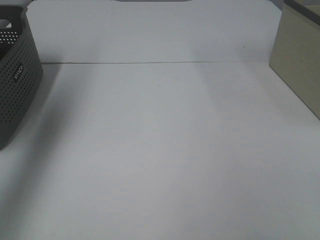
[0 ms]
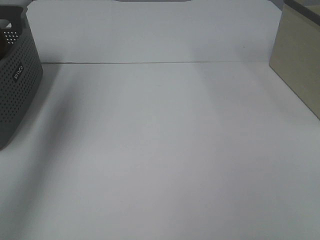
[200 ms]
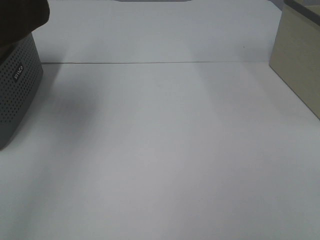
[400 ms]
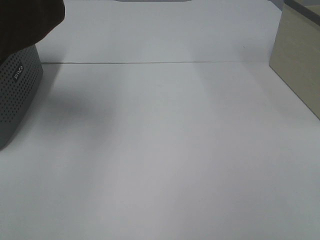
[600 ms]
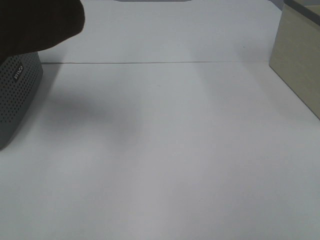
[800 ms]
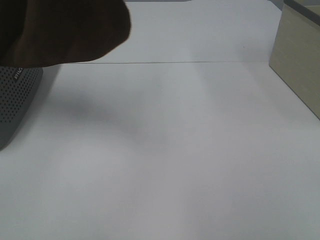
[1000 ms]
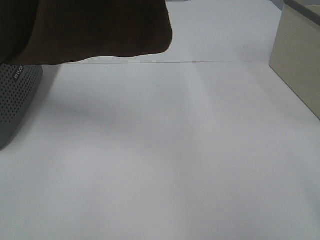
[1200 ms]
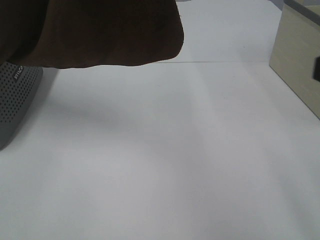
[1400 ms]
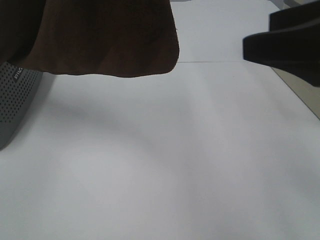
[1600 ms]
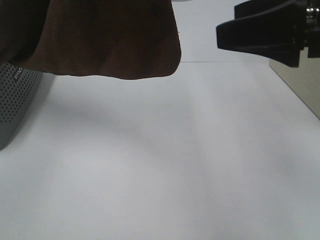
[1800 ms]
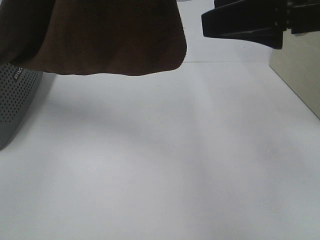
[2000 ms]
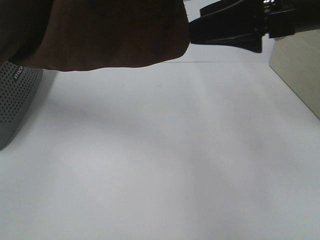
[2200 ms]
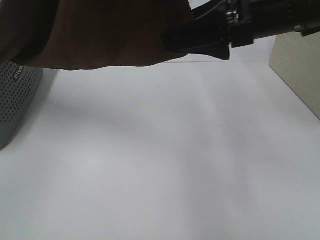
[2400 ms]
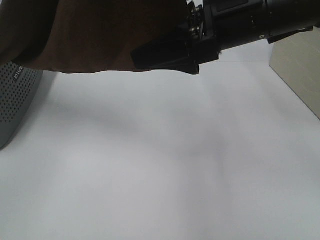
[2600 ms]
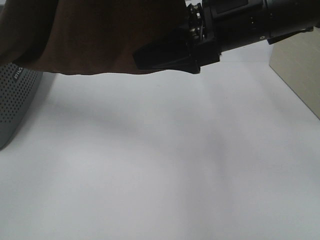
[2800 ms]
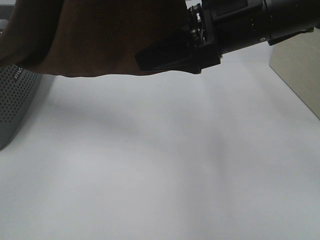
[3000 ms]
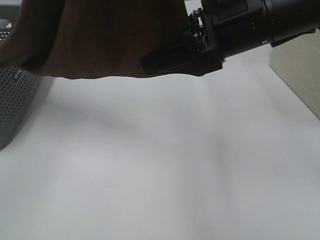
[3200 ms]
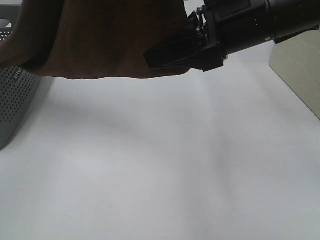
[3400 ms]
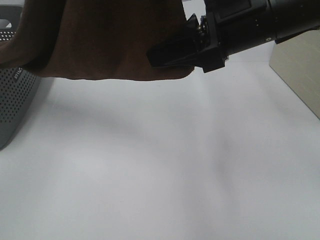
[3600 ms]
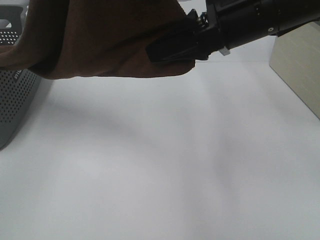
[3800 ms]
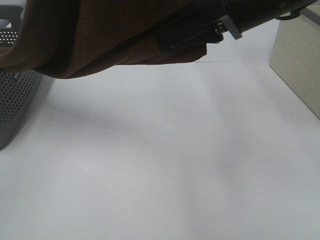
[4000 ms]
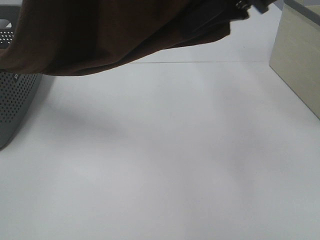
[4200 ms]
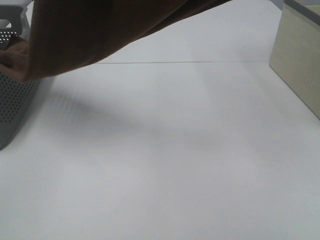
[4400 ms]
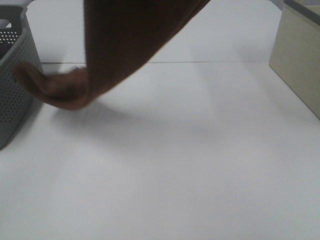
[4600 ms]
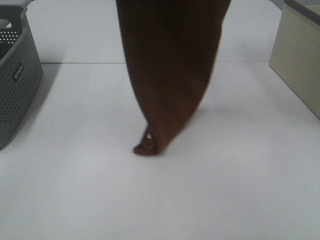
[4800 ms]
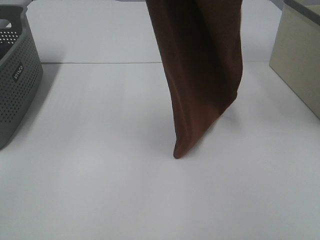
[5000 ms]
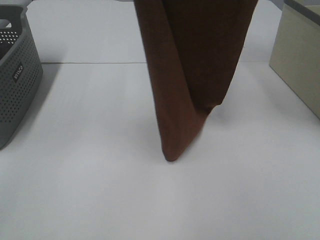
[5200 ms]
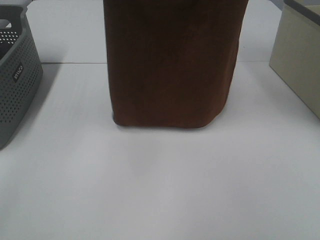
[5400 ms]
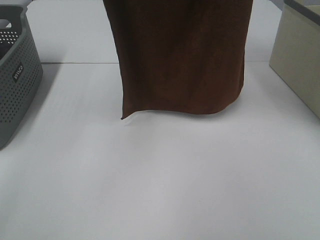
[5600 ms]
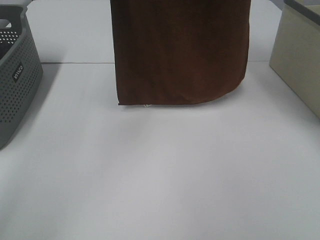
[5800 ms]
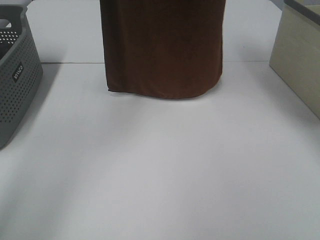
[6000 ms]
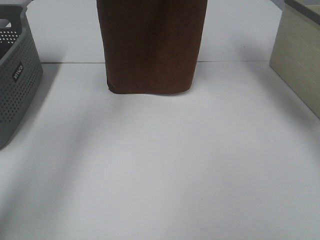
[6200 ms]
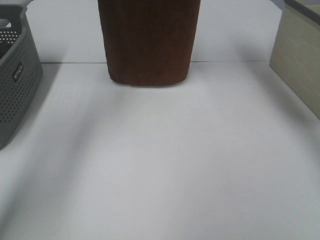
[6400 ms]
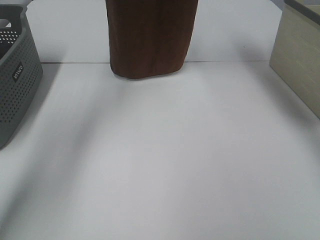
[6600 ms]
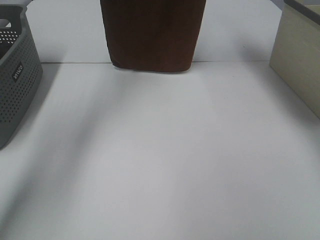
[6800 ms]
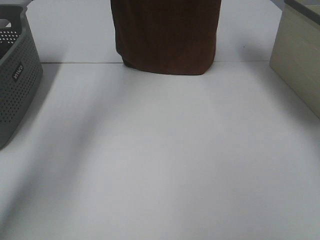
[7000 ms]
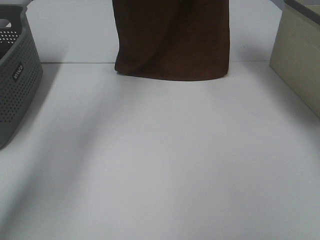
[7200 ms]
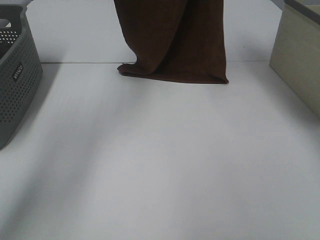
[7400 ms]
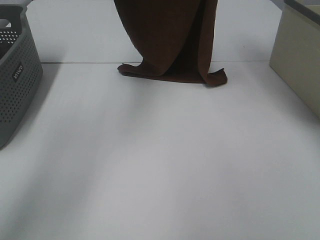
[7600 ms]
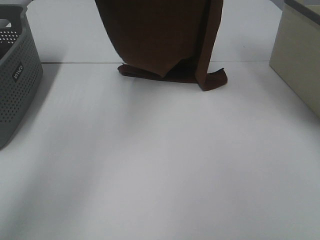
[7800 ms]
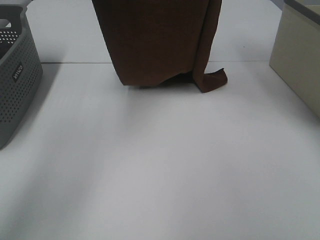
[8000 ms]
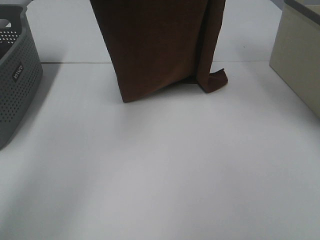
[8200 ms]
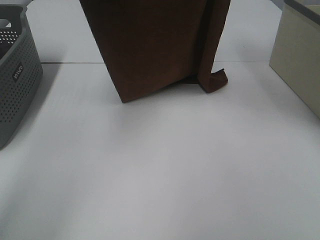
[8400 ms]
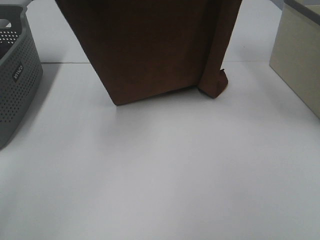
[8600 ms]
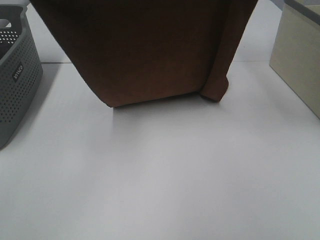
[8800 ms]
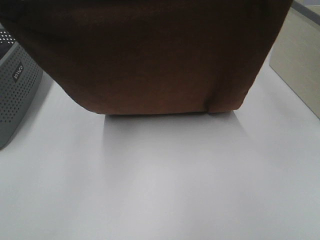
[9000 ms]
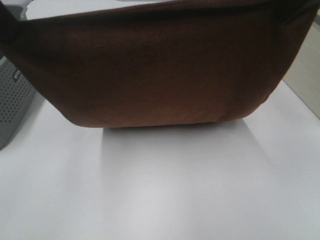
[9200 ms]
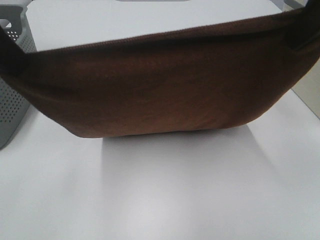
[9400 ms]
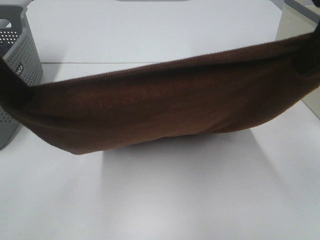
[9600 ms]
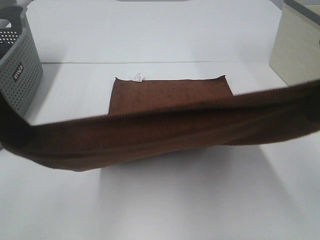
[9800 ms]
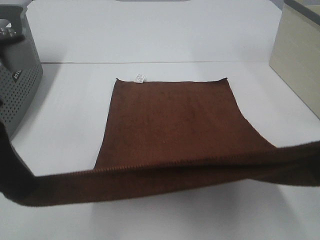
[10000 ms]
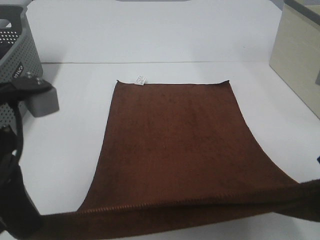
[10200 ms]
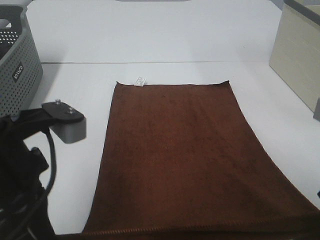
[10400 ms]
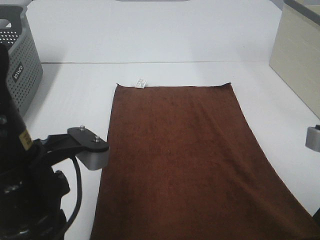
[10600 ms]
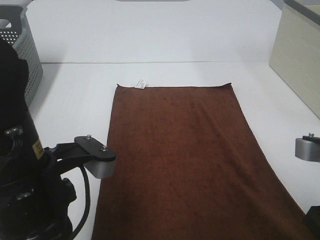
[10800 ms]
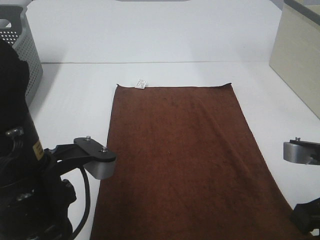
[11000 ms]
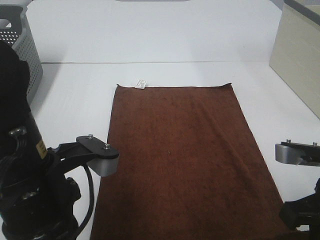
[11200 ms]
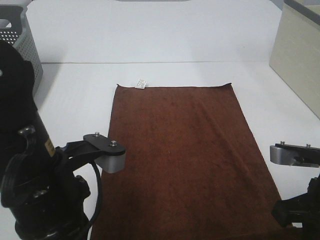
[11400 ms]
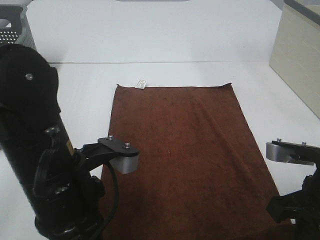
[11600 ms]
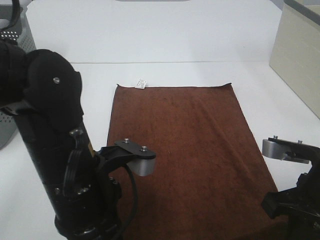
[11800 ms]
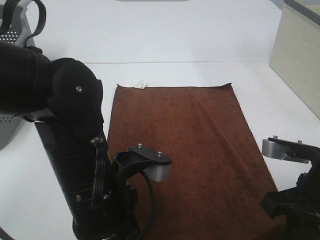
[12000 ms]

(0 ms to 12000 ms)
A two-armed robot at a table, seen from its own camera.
Task of the whole recording: Remove the towel and place it.
Step, 200 ms - 3000 ms: Right hand: grab a corner of the brown towel and straighten it.
Step, 3200 ms - 8400 ms: Left hand: spread the brown towel flat on the table.
Step, 3200 ms - 8400 ms: Right hand: spread the brown towel flat on the table.
0 ms - 1600 ms: The right gripper heads forward and to the left, covering roughly 20 cm, while the left gripper shifts roughly 25 cm to the right and backward.
1600 ms - 3000 ms: The right gripper goes about 15 cm to the left and forward.
3000 ms - 4400 ms: The right gripper travels upward by roughly 15 cm, and closes.
4400 ms - 6000 ms: The left gripper goes approximately 20 cm forward; the right gripper travels forward and upward by approximately 15 cm.
6000 ms - 7600 ms: The two grippers go some 5 cm downward.
7600 ms - 9000 ms: Both grippers move backward, roughly 20 cm.
9000 ms - 10400 ms: Both grippers move downward and backward, approximately 20 cm.
10400 ms - 12000 ms: The right gripper moves downward, approximately 10 cm, while the left gripper travels to the right and downward by about 10 cm.

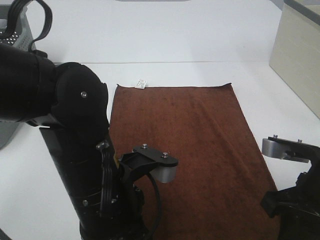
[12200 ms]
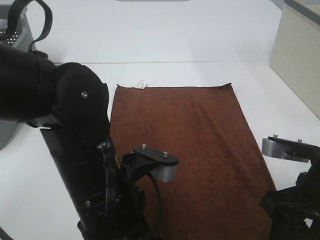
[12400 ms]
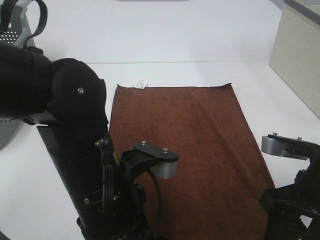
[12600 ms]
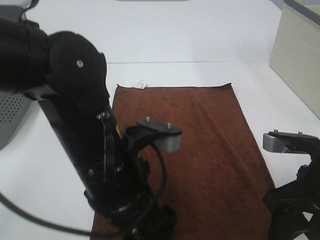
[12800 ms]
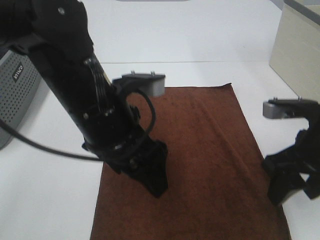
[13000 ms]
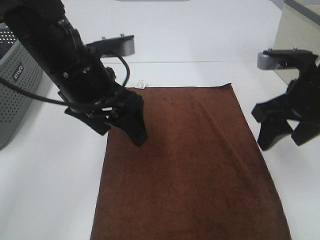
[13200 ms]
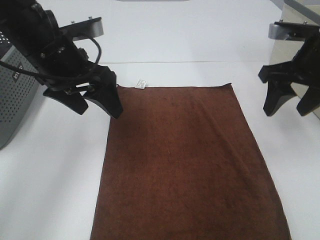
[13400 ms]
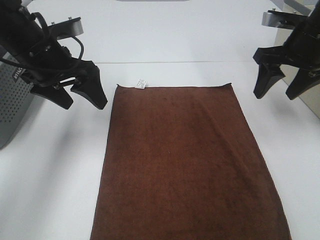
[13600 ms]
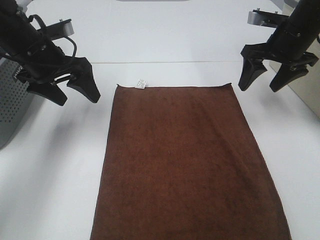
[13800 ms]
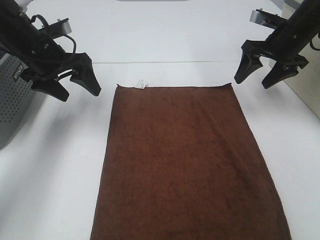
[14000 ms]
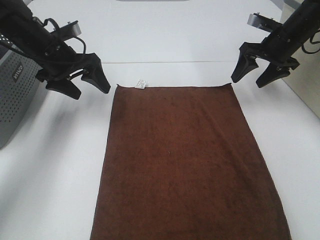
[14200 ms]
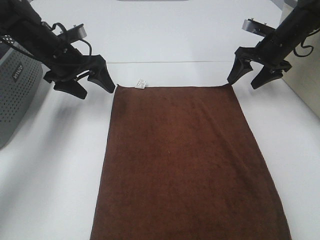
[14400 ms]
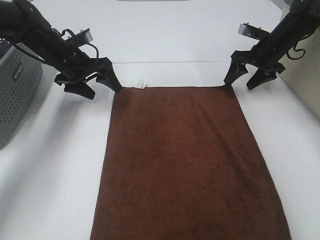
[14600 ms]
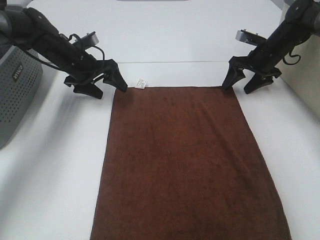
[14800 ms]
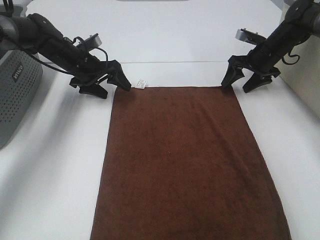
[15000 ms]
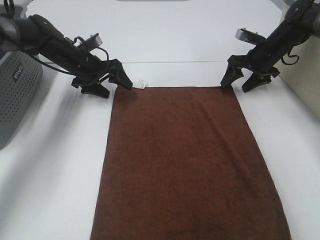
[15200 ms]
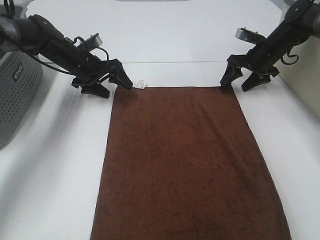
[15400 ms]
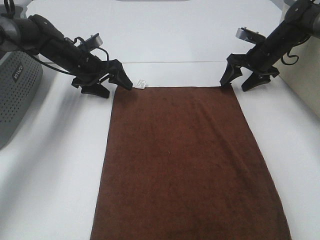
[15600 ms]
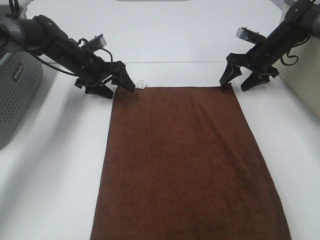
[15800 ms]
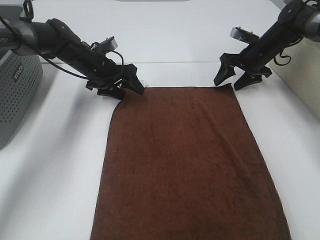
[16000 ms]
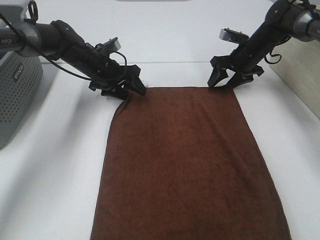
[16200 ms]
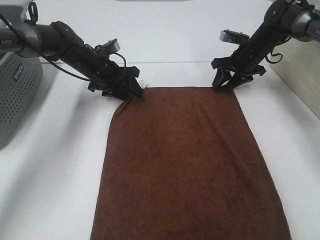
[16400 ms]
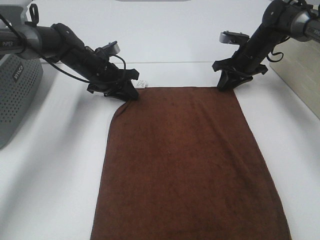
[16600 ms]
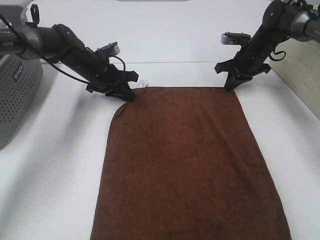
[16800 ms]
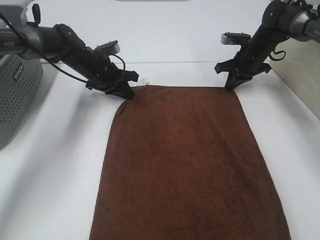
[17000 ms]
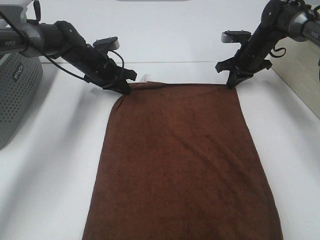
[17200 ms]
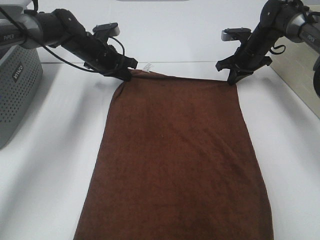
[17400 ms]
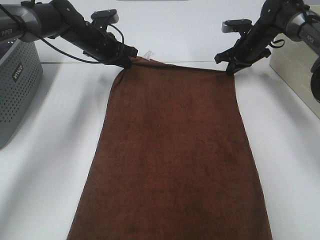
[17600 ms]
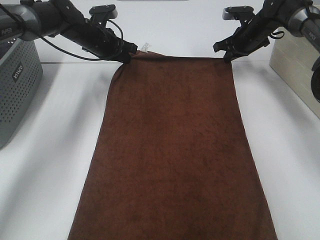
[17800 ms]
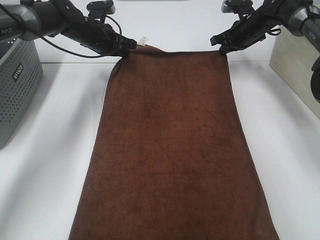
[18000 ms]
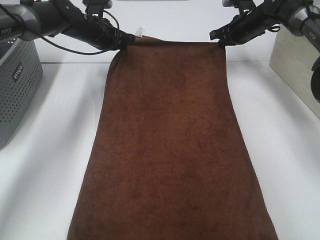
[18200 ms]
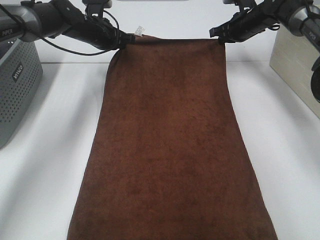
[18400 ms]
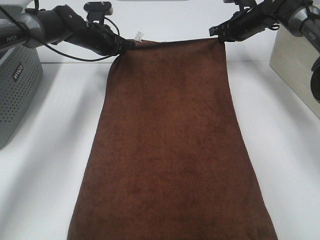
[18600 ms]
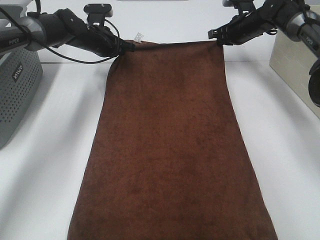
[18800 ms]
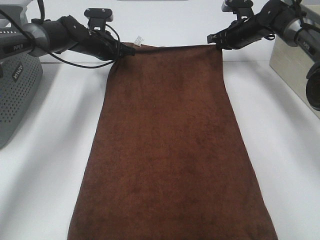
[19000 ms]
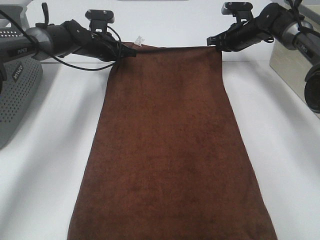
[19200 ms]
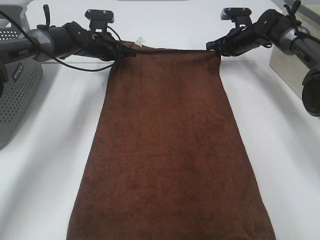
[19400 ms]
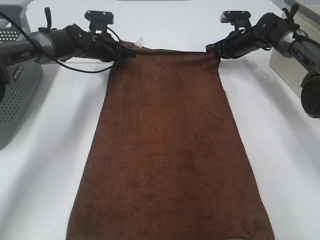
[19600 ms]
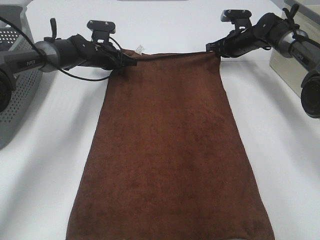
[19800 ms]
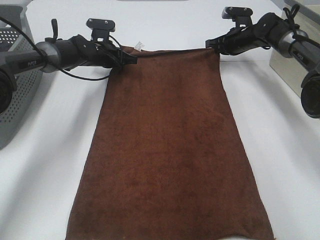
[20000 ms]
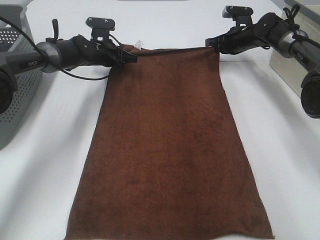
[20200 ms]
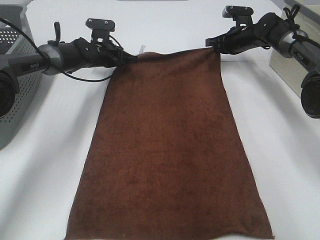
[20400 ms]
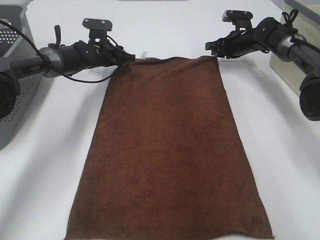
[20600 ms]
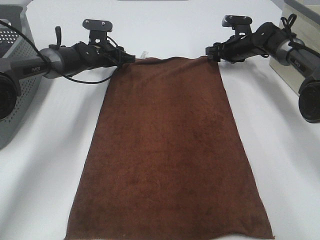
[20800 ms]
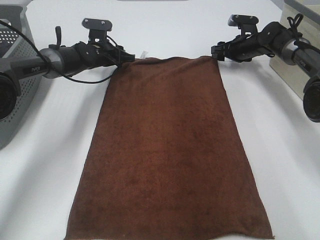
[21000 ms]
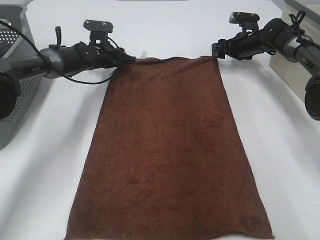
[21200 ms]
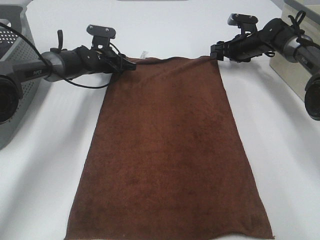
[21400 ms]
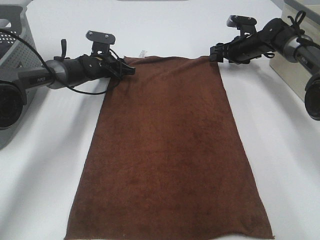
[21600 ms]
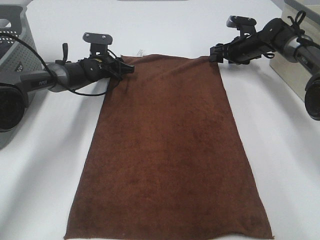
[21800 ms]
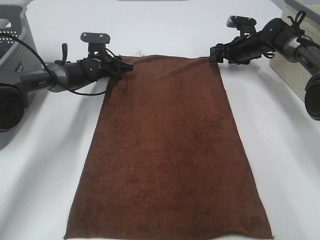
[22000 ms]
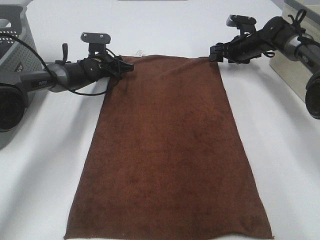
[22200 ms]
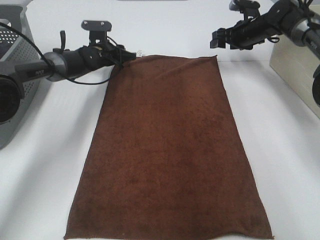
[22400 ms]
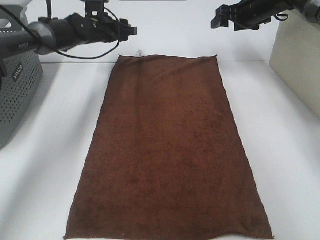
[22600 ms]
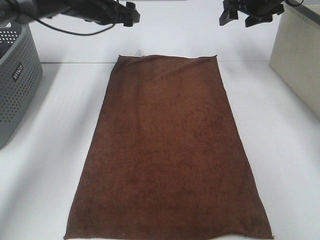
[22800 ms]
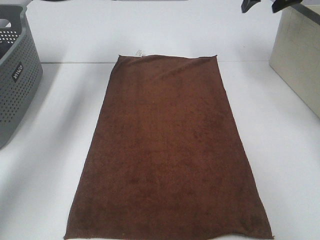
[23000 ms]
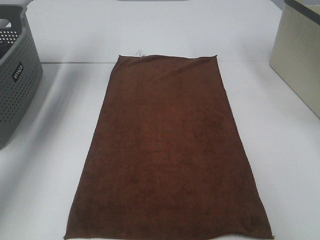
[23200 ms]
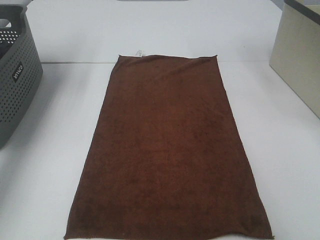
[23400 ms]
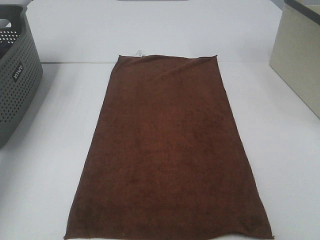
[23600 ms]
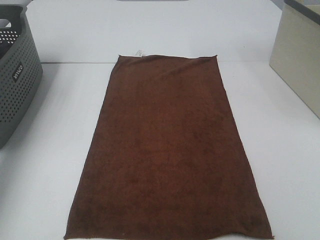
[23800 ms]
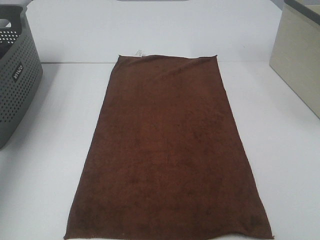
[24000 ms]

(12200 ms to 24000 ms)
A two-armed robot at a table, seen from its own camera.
Task of the whole recording: Remove the towel and place it.
Step, 12200 ms - 15000 ms: Left hand:adjust the brown towel.
Step, 12200 ms - 15000 ms: Right hand:adjust the brown towel.
12200 ms - 13600 ms: The right gripper heads forward, covering about 20 cm, and opens. The left gripper is displaced forward and to the left by about 25 cm, and opens up.
13600 ms - 15200 ms: The two grippers go roughly 20 cm forward and downward.
15200 ms - 16600 ms: The left gripper closes. Meanwhile the right gripper closes.
16600 ms - 18200 ms: Both grippers move upward and forward, about 10 cm. The right gripper closes.
18200 ms - 19600 ms: The two grippers go about 5 cm downward.
19600 ms - 21000 ms: The right gripper opens. The left gripper opens its fingers.
21000 ms - 22600 ms: Both grippers move upward, about 10 cm.
22600 ms - 24000 ms: The right gripper heads backward and upward, covering approximately 35 cm; the left gripper shifts about 35 cm to the left, upward and backward.
